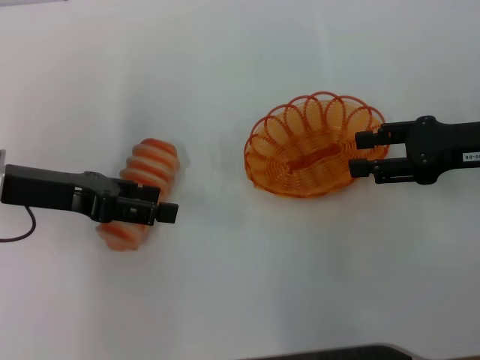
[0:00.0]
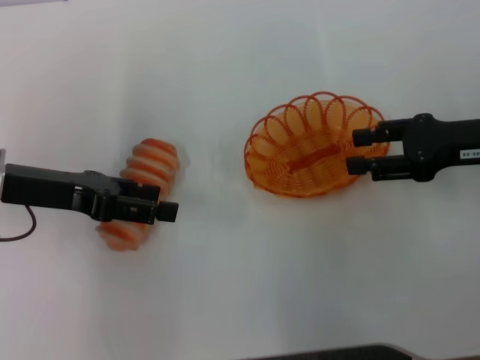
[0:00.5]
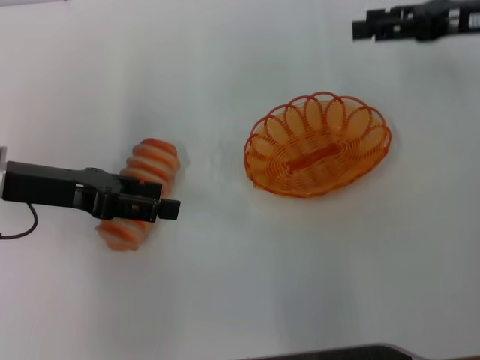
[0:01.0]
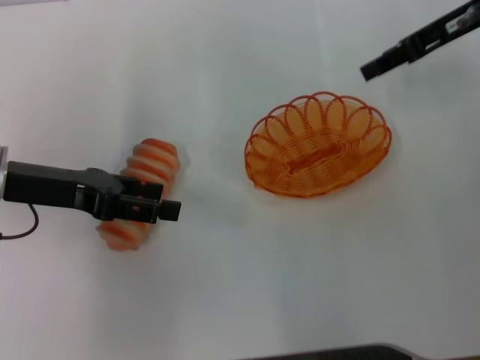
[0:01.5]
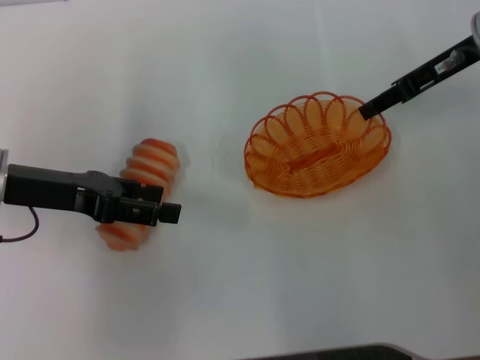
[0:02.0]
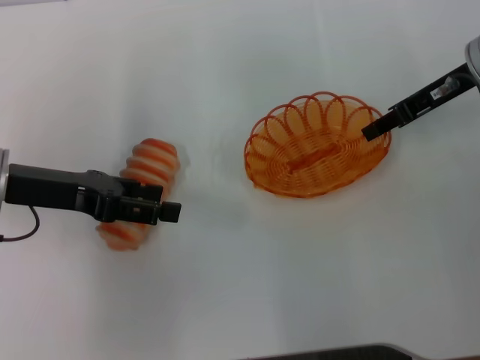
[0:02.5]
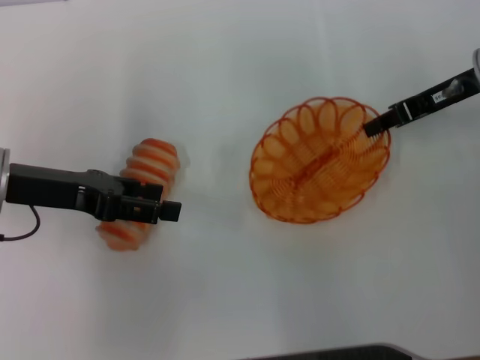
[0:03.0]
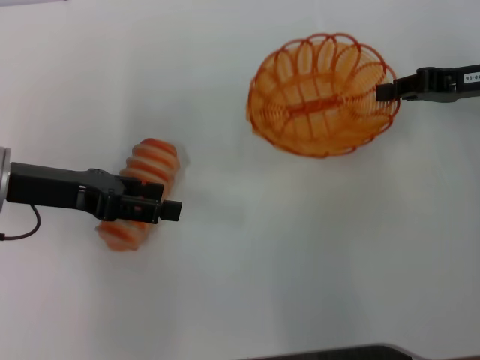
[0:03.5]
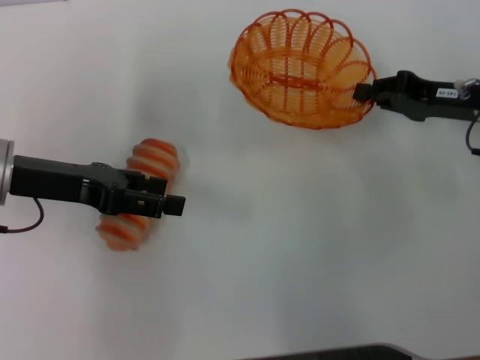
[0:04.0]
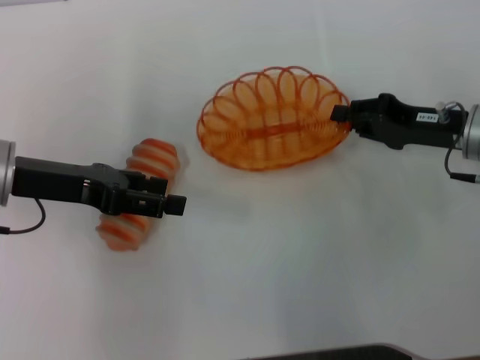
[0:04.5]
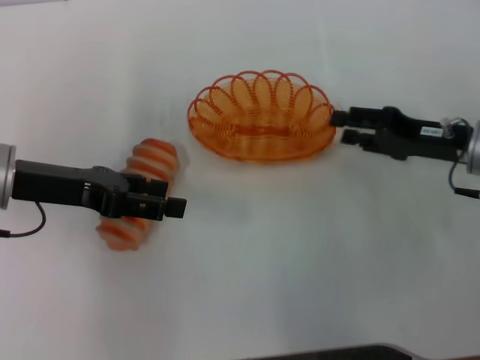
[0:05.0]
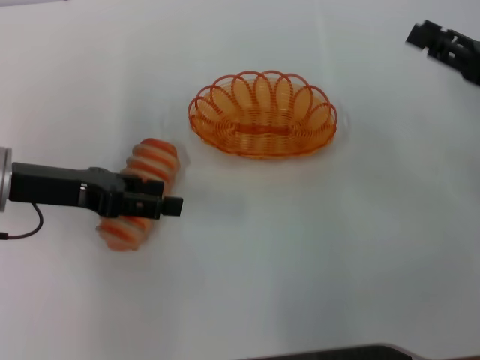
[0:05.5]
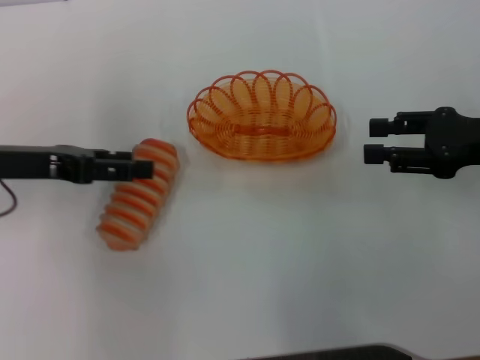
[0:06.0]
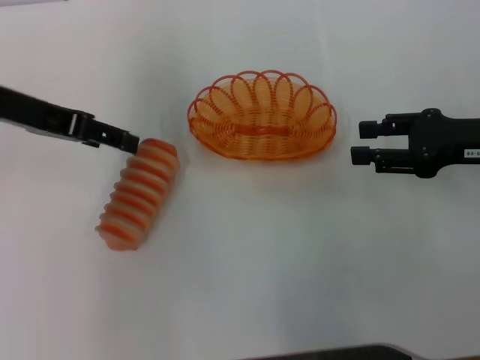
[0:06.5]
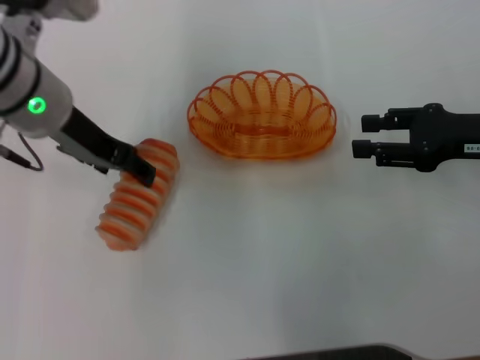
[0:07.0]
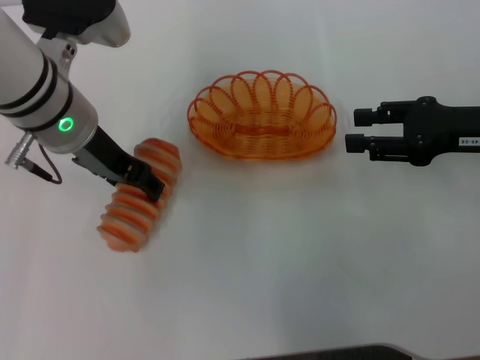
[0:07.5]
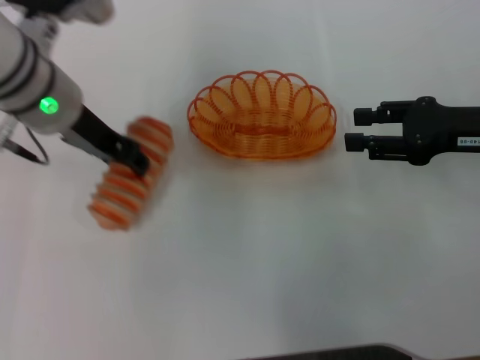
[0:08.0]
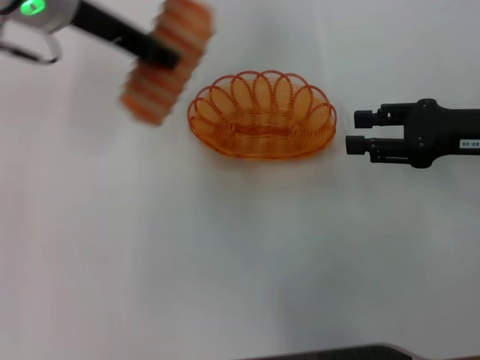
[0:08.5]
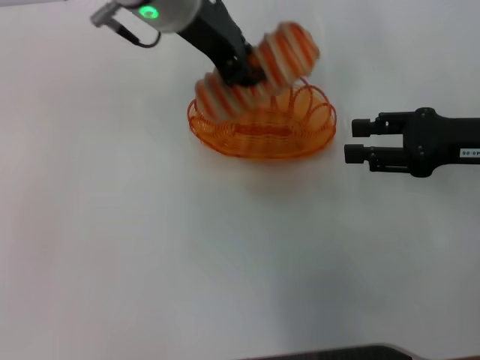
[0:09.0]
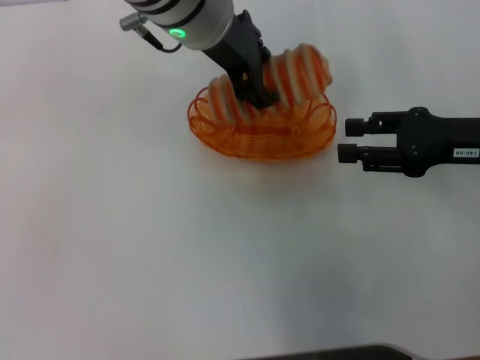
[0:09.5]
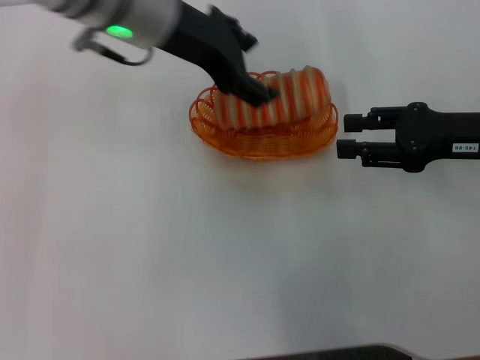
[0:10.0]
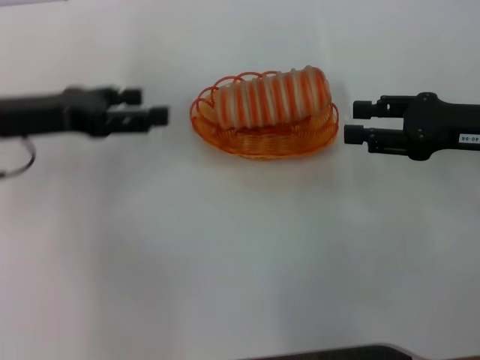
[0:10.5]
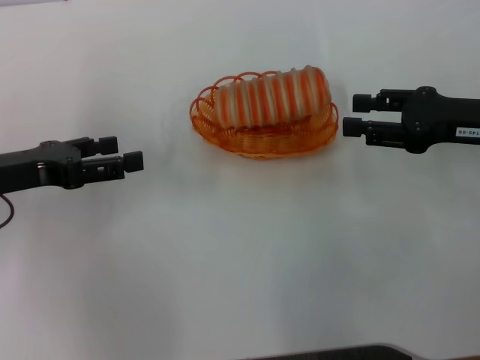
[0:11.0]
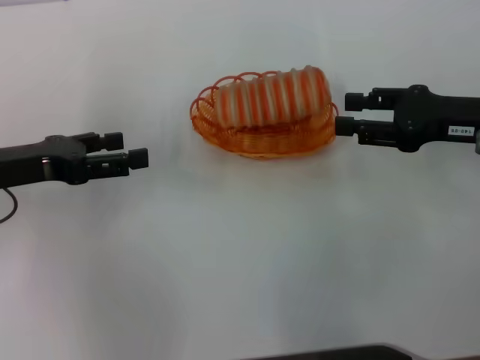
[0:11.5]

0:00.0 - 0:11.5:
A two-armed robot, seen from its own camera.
Step, 0:00.0 - 0:03.0: Pick up the basket with the right gripper.
Step, 0:04.0 - 0:05.0: Place the basket in the center of view with the right gripper.
Step, 0:05.5 - 0:08.0: Pick up the long bread with the left gripper.
Step, 0:08.5 - 0:10.0: Place the long bread into the basket with the left gripper.
0:00.0 - 0:02.0: The right gripper is displaced forward and upward by about 10 cm.
0:02.0 - 0:04.0: The right gripper goes about 10 cm downward and backward, and closes up.
0:04.0 - 0:06.0: The right gripper goes some 5 cm backward, and opens its fingers.
0:06.0 - 0:07.5: The left gripper shifts roughly 10 cm to the right.
0:07.5 - 0:09.5: The left gripper heads to the right and upward, covering roughly 15 cm, and closes up.
0:09.5 - 0:11.5: The left gripper heads to the left and downward, covering roughly 25 cm, and opens.

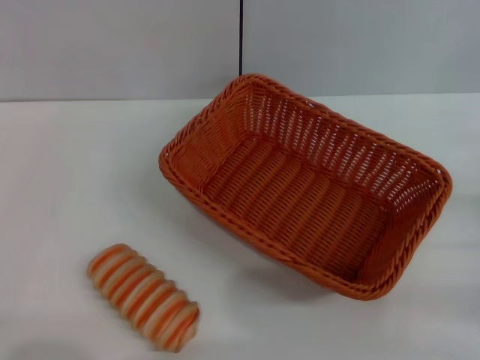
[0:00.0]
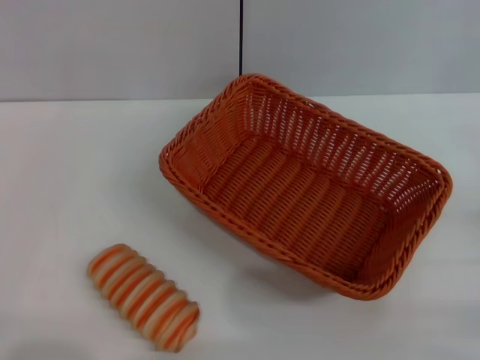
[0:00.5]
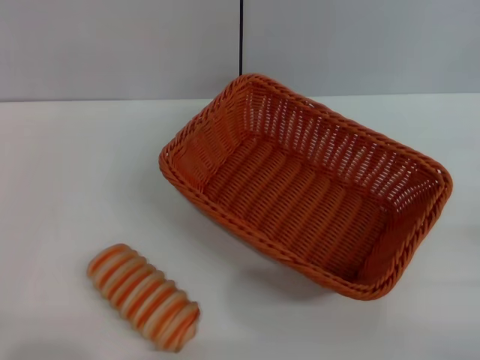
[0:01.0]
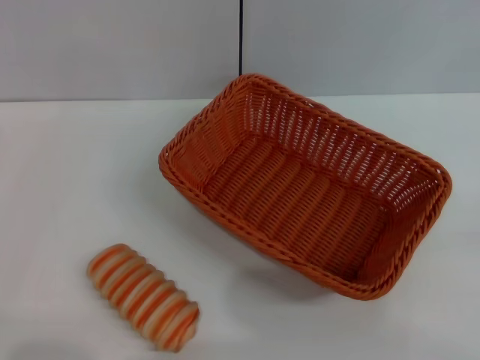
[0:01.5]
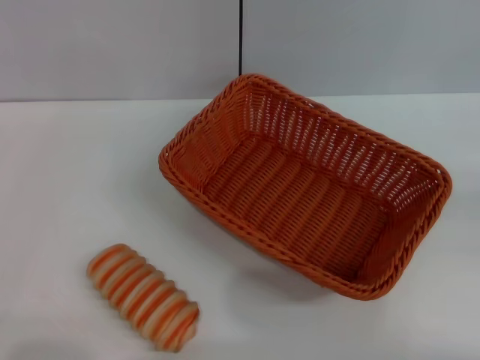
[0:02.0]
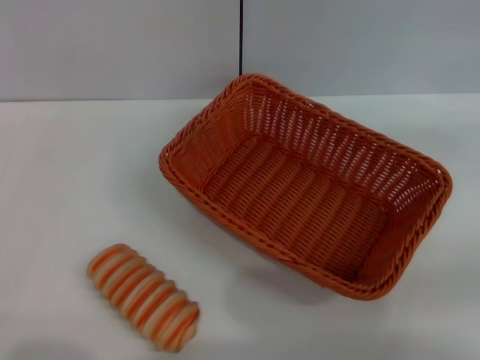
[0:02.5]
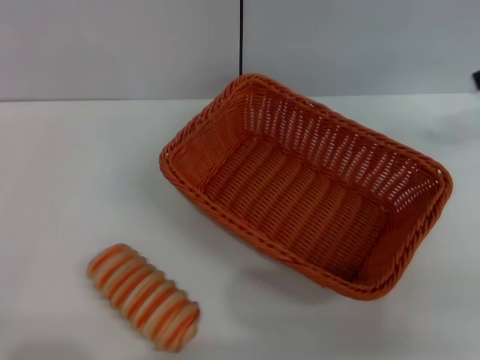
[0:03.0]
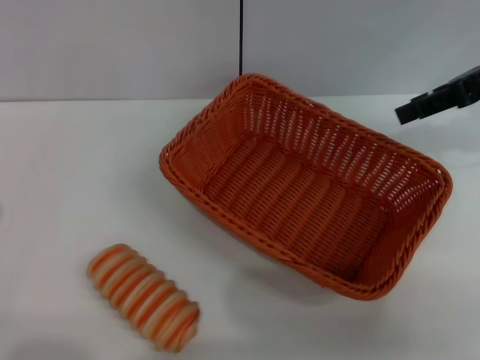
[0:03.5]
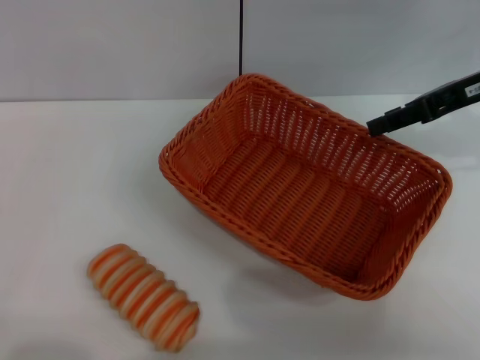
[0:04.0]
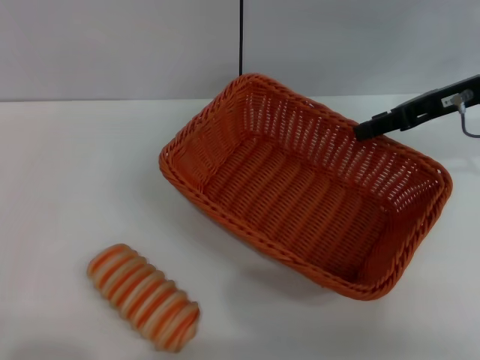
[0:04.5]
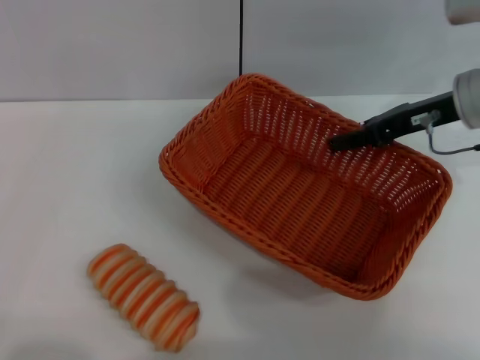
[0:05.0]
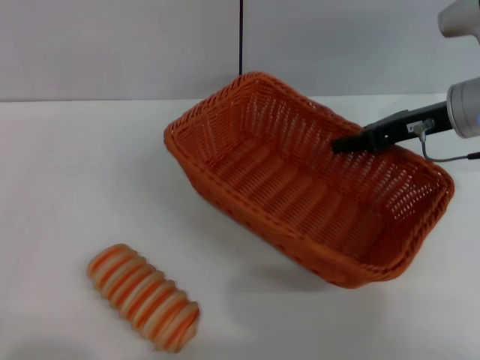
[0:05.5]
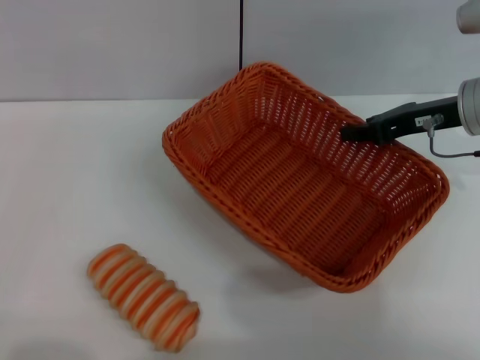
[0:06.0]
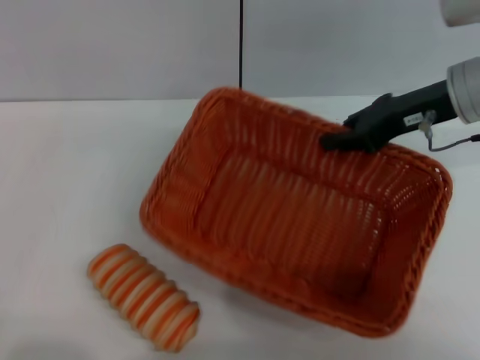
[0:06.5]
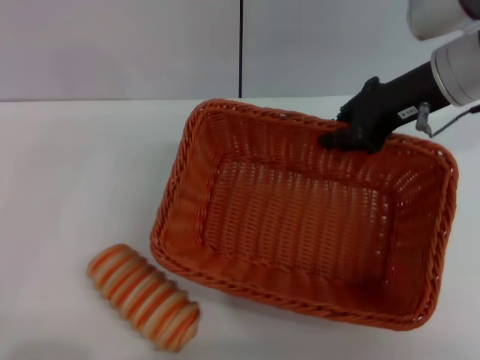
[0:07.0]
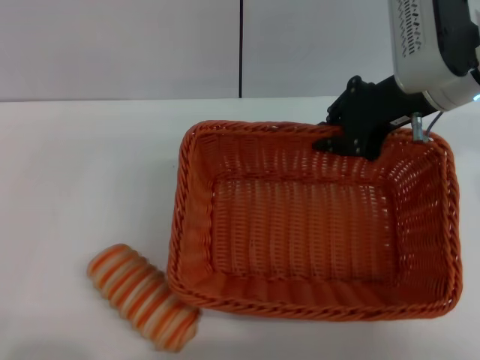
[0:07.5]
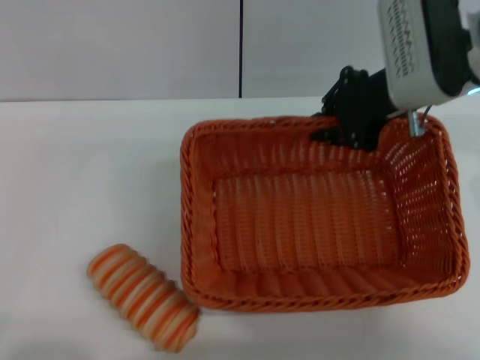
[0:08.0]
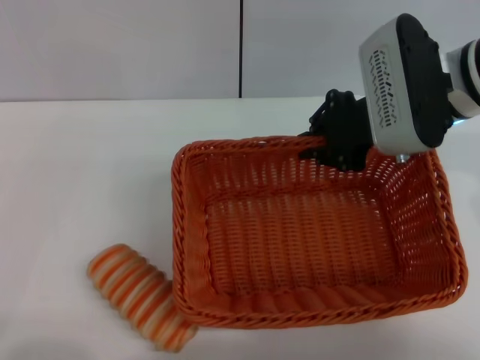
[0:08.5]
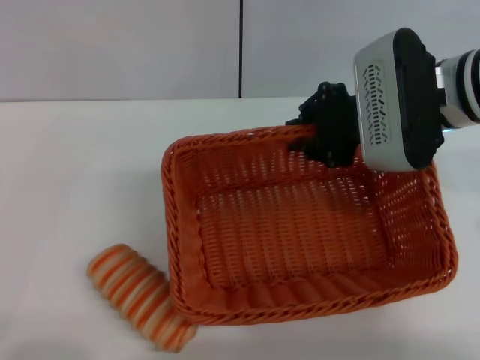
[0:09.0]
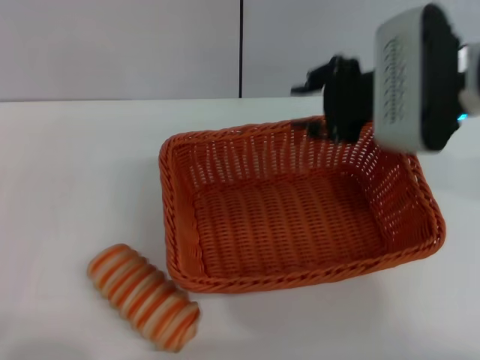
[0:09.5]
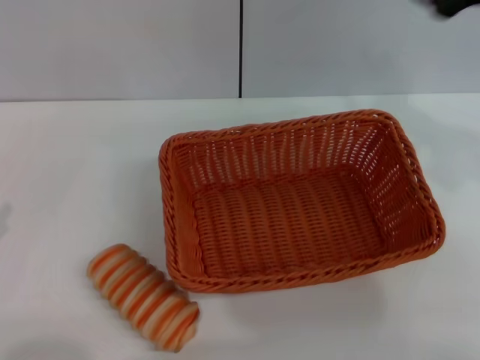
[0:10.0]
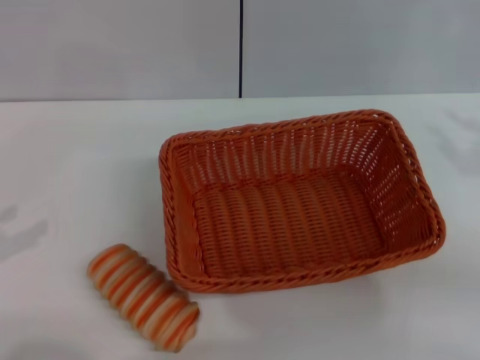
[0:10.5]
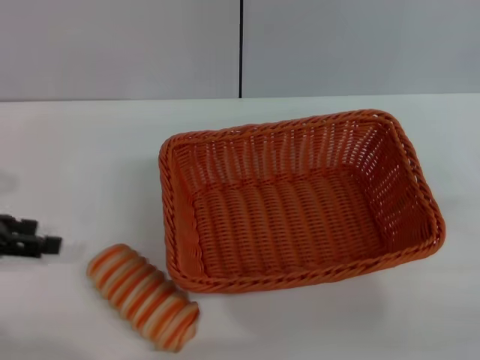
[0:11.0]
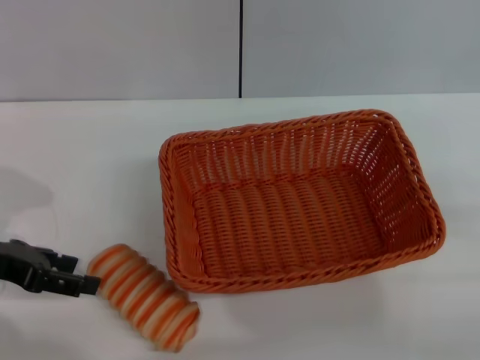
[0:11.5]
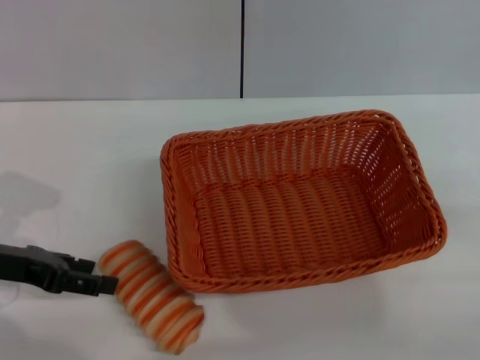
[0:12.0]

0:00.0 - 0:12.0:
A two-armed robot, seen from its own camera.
Step, 0:00.0 - 0:06.0: Pick up the light basket with the right gripper.
Step, 0:06.5 - 0:09.0: Place the light basket in the center of view with the right gripper.
0:02.0 - 0:04.0: The right gripper shifts about 30 cm to the left and forward.
0:04.0 - 0:06.0: The right gripper moves downward, approximately 5 cm, and closes up.
0:06.0 - 0:08.0: The right gripper shifts roughly 10 cm to the left and upward.
0:08.0 - 0:10.0: The right gripper travels to the right, backward and upward by about 10 cm, and opens up. Meanwhile the left gripper heads upward, covering roughly 5 cm.
0:10.0 - 0:12.0: The left gripper is displaced forward and to the right by some 15 cm, while the right gripper goes some 25 cm downward, backward and to the right.

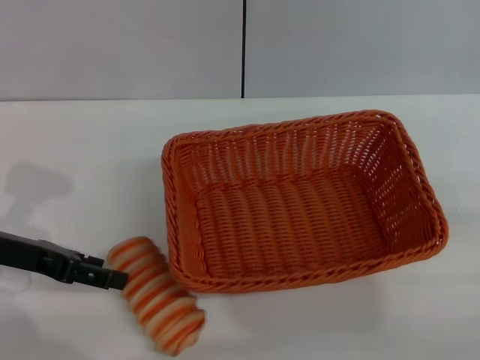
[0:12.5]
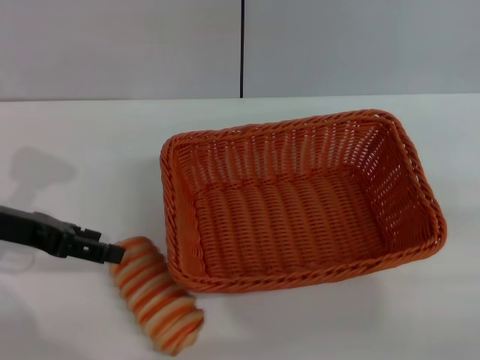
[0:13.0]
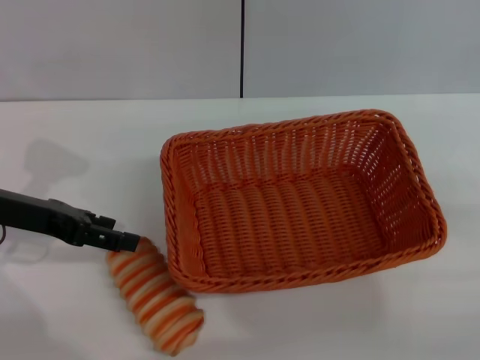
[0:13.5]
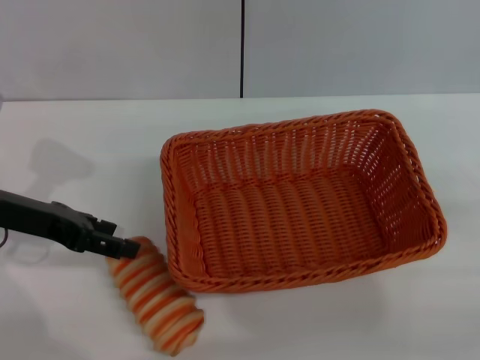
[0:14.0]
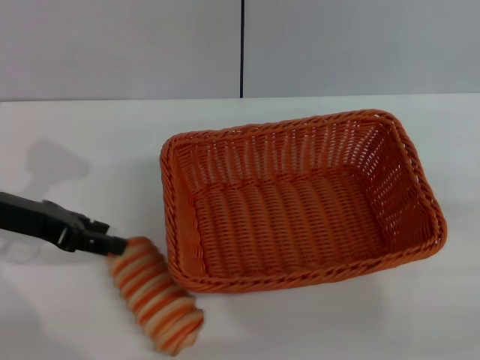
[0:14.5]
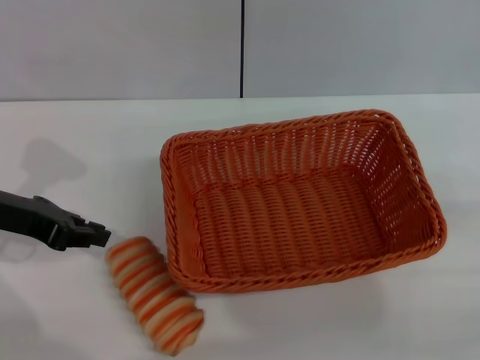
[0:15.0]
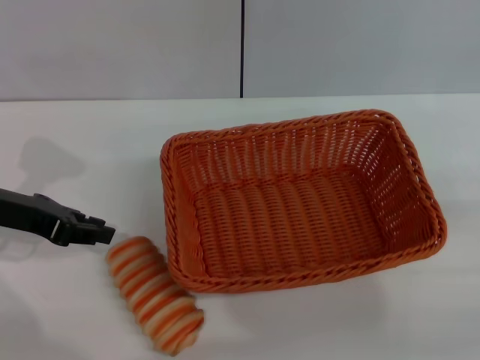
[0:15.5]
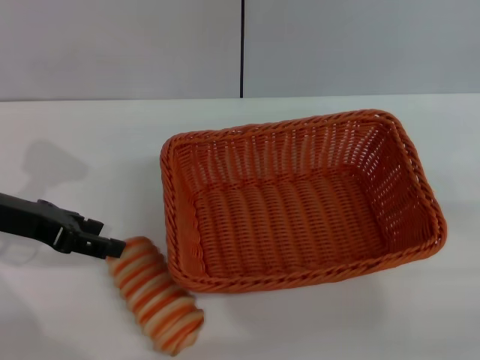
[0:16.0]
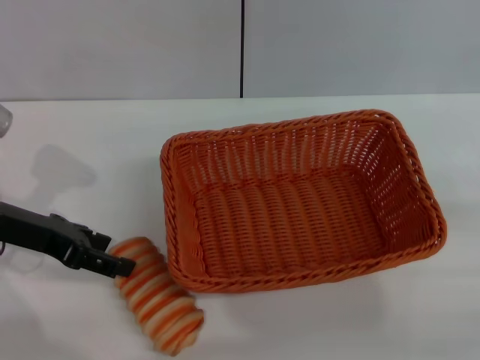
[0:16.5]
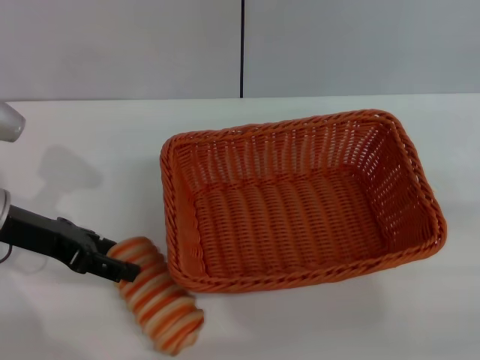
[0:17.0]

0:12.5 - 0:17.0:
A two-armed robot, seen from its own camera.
0:12.5 - 0:14.5: The grippers stay close to where they were, moving slightly.
0:14.5 - 0:17.0: The left gripper closes and opens again.
